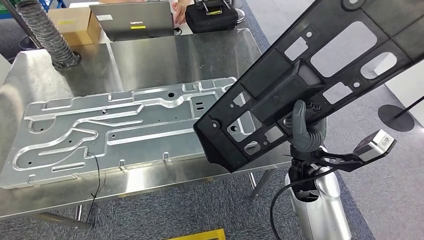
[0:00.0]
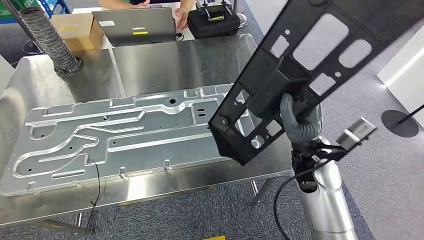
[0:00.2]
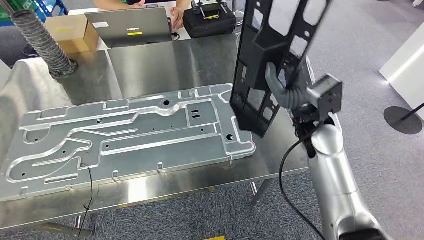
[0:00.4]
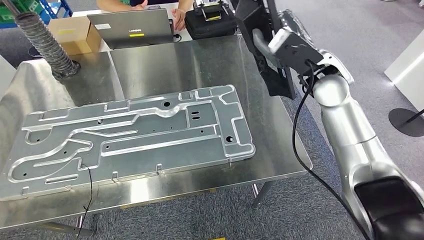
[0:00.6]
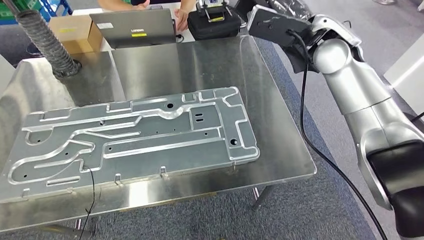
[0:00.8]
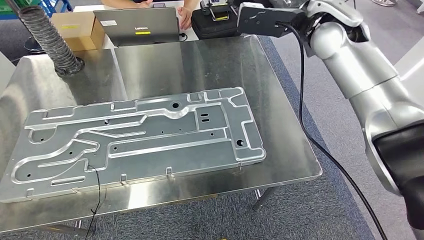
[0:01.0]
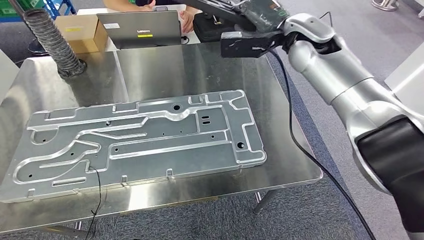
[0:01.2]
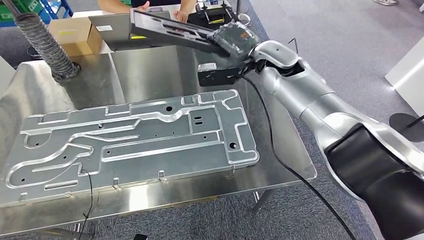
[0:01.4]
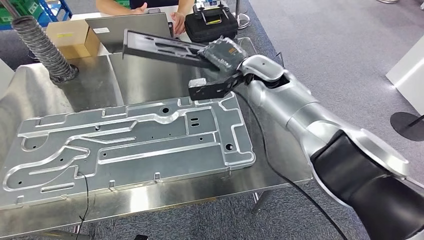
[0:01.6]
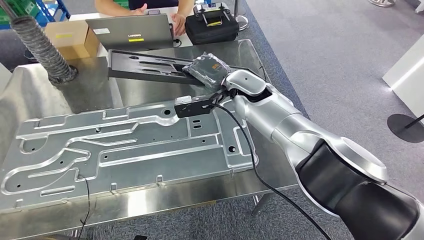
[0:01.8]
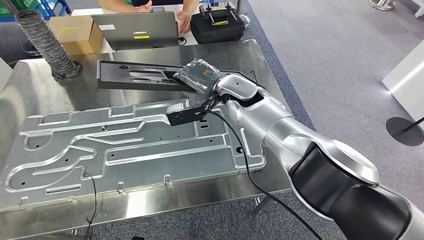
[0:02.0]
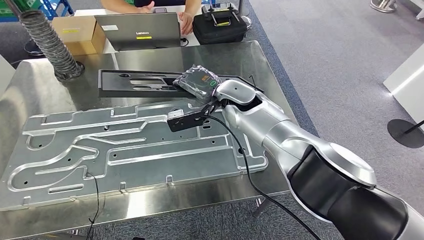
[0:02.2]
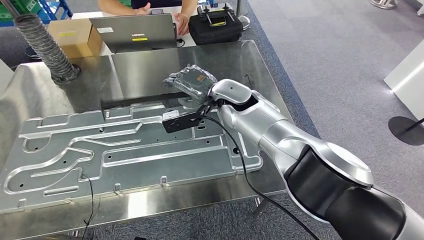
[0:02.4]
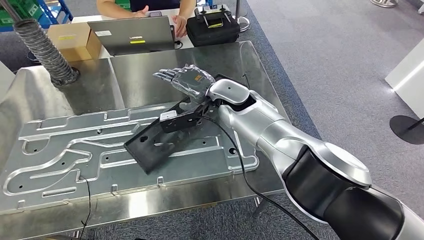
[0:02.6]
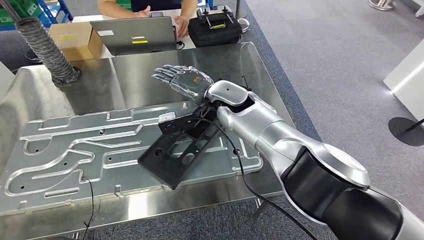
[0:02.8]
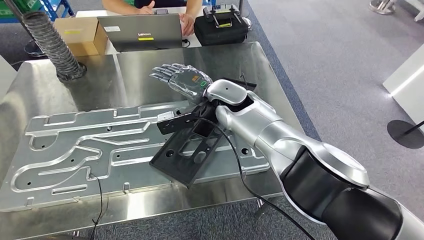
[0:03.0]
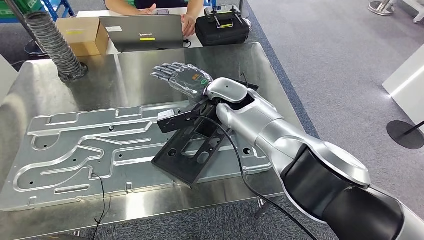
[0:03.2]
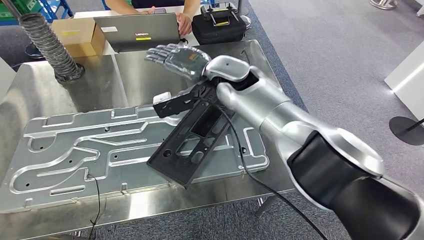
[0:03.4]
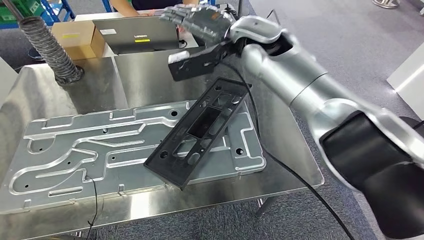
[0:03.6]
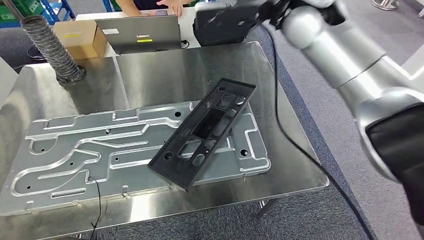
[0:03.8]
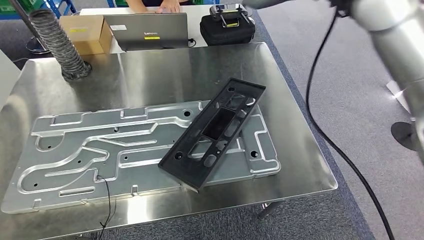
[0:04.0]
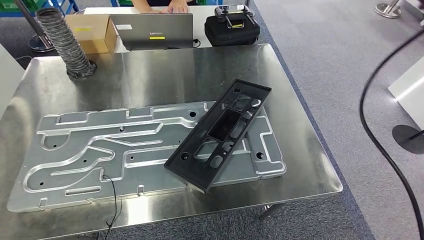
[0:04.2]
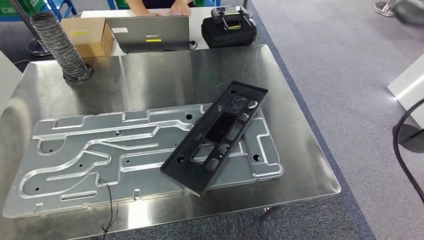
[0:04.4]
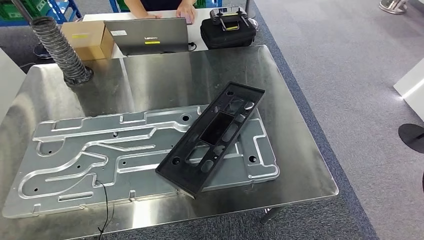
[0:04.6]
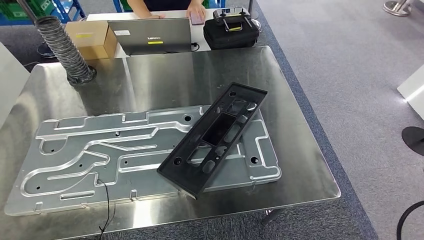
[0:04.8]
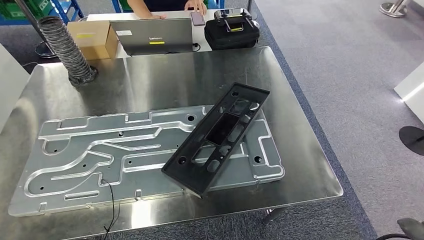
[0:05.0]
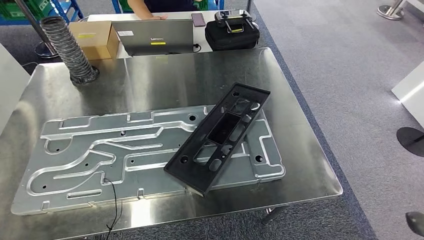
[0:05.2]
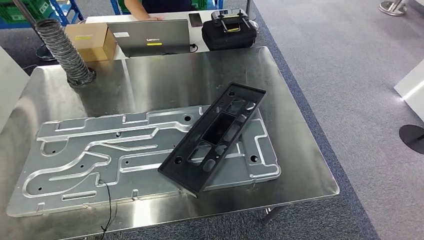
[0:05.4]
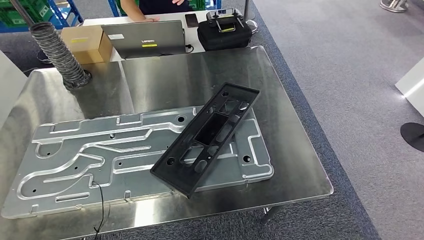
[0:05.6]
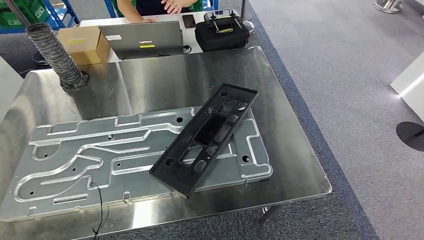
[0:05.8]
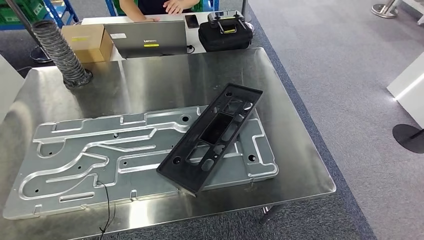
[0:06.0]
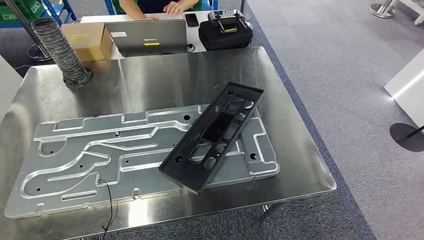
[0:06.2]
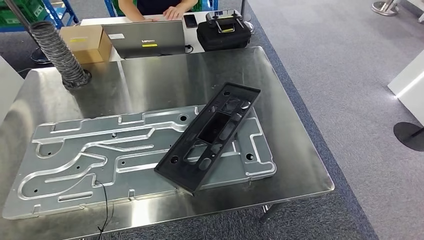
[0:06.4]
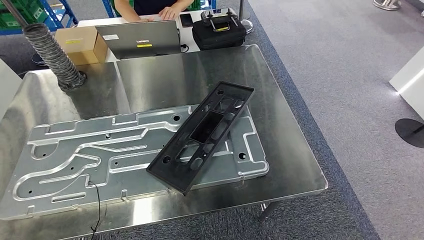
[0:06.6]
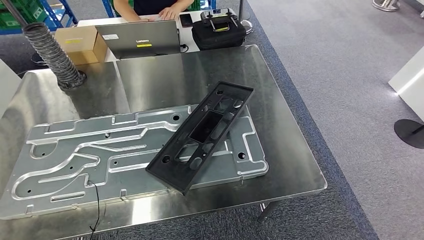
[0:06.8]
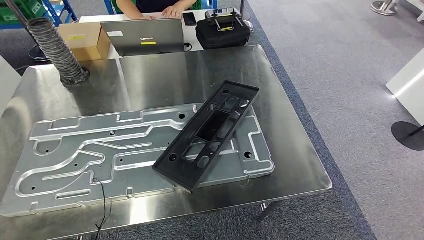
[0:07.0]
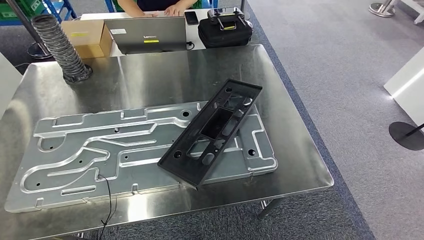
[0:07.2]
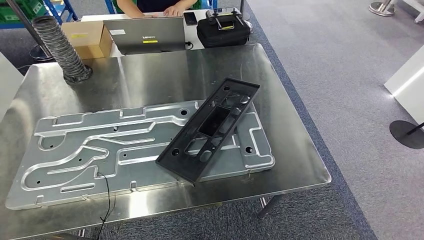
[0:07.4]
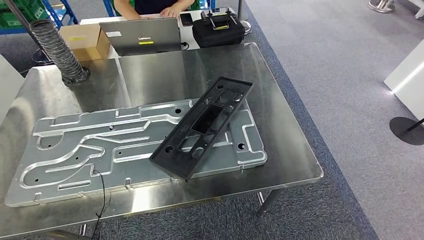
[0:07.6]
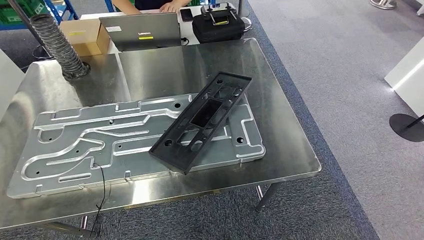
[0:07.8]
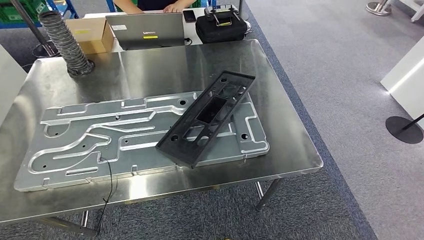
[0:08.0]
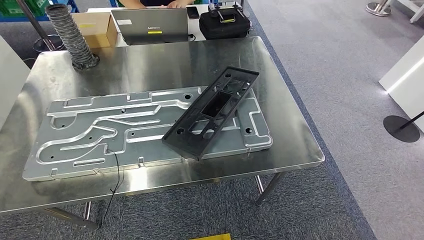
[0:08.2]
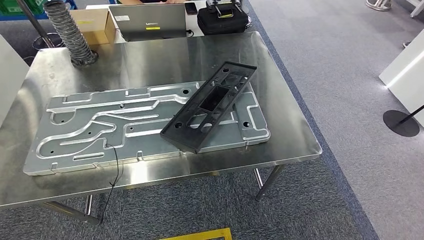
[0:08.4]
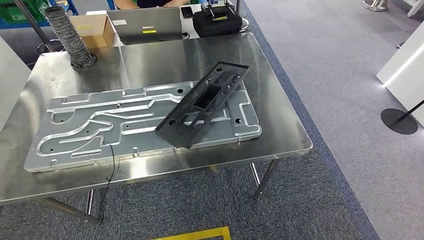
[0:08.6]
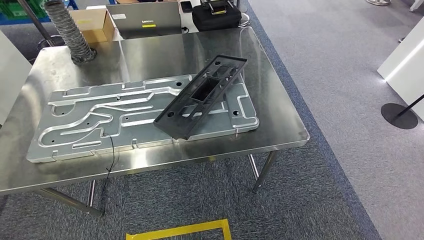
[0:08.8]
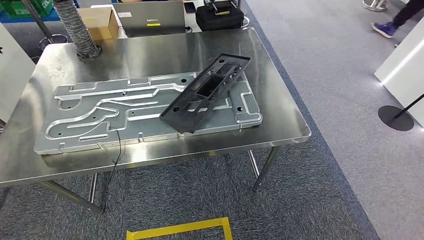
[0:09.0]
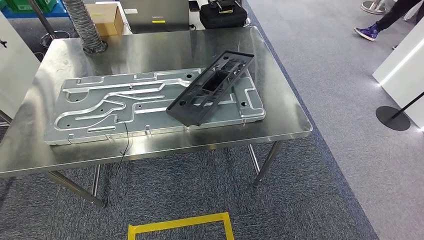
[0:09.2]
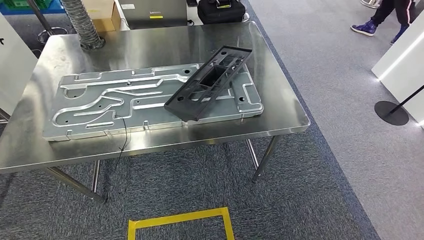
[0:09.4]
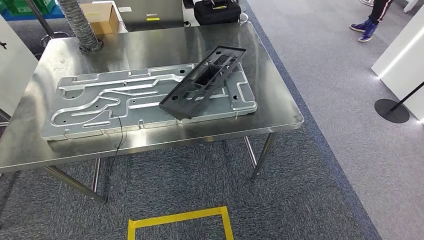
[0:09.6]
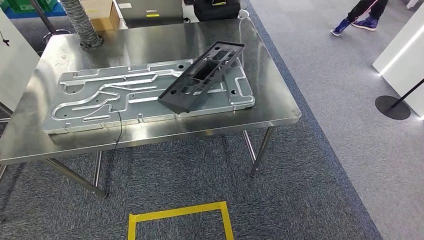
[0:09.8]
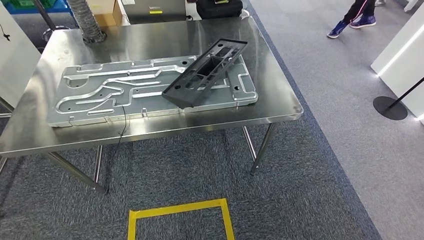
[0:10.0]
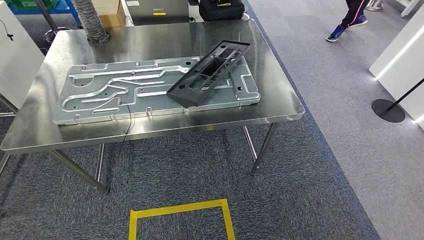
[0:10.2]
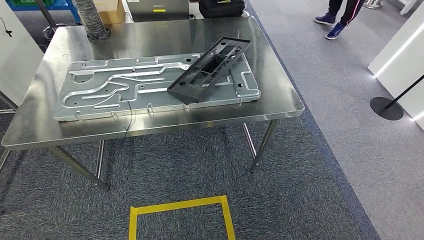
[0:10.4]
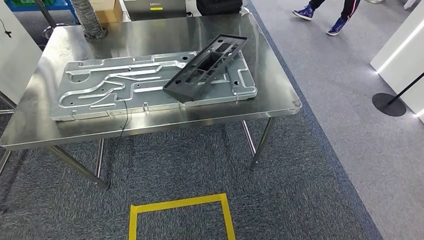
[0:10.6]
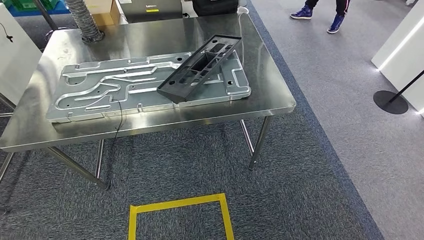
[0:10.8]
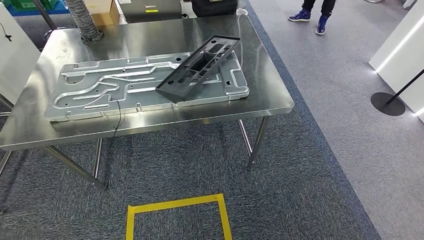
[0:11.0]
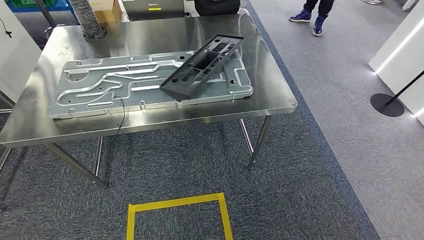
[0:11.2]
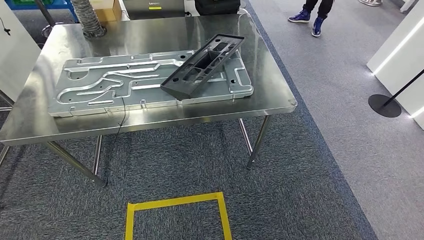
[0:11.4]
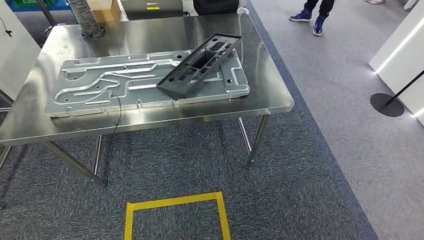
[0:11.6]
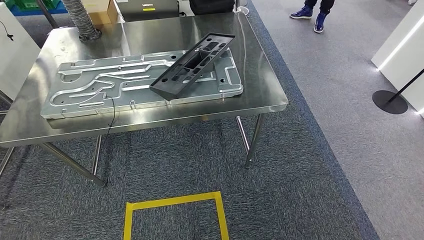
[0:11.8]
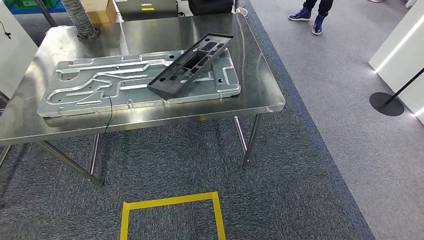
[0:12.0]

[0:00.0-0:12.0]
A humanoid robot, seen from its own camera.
Step, 0:00.8 to 0:05.0: Insert the large material into the corresponding slot on the workbench.
0:04.4 to 0:06.0: The right hand moves downward and backward, some 60 cm.

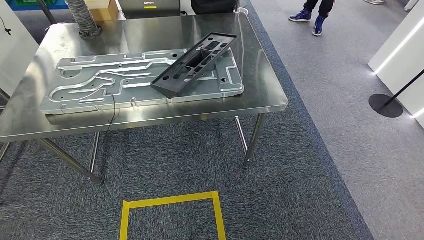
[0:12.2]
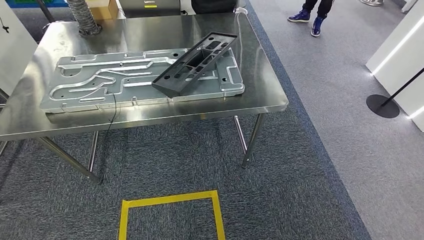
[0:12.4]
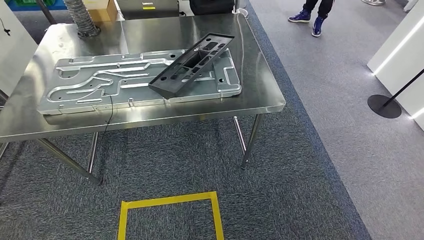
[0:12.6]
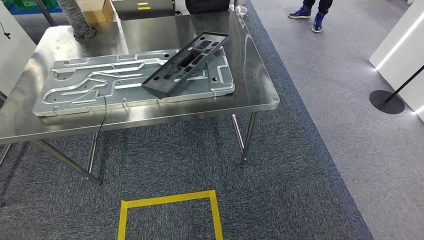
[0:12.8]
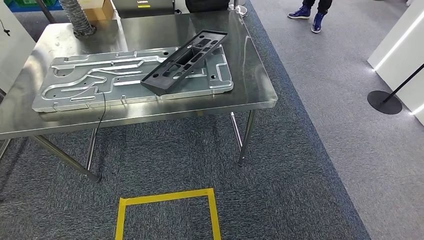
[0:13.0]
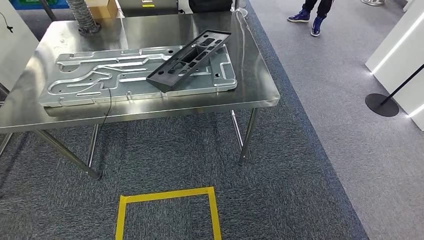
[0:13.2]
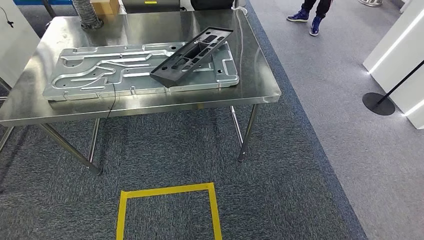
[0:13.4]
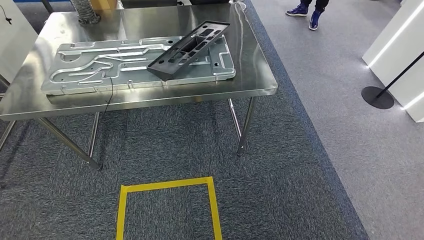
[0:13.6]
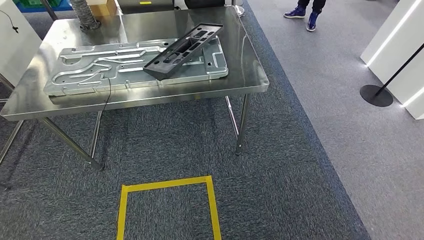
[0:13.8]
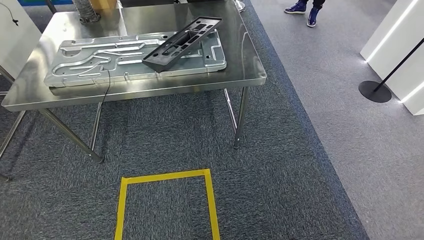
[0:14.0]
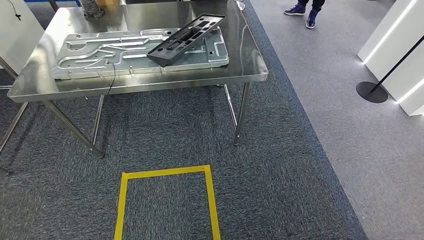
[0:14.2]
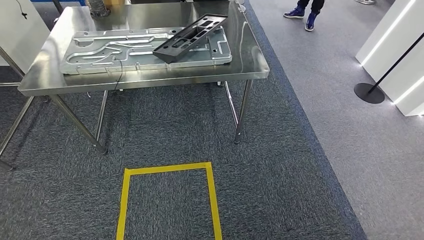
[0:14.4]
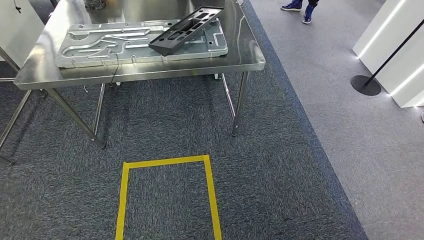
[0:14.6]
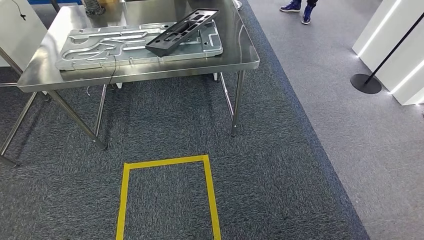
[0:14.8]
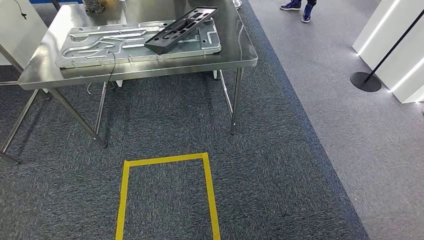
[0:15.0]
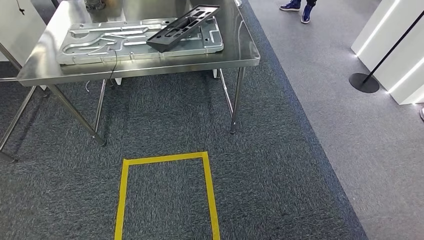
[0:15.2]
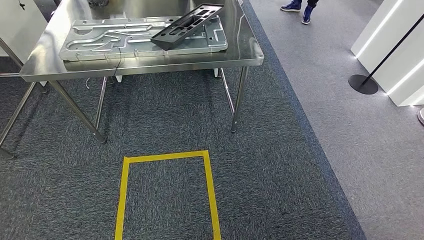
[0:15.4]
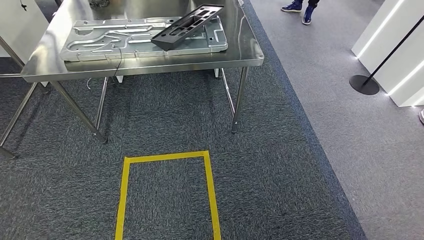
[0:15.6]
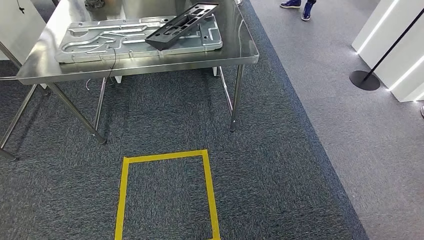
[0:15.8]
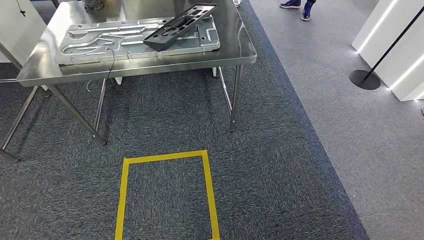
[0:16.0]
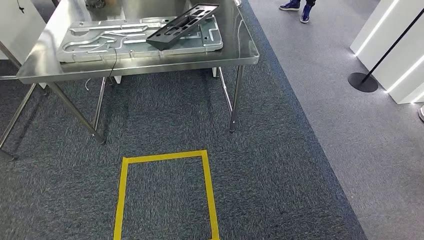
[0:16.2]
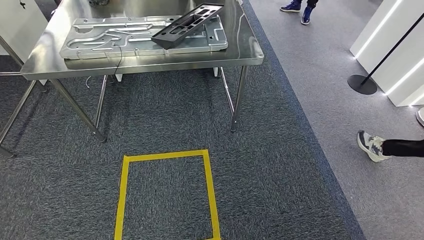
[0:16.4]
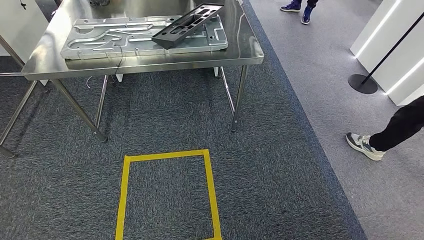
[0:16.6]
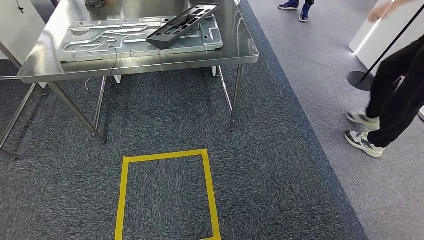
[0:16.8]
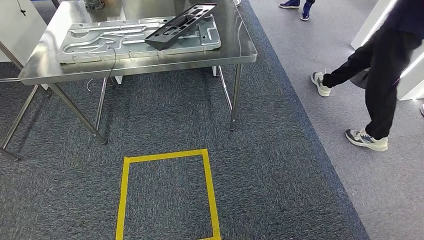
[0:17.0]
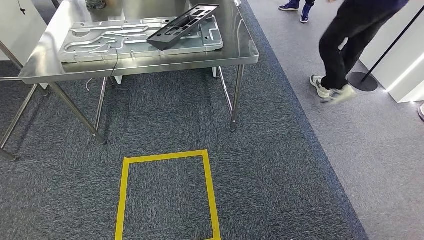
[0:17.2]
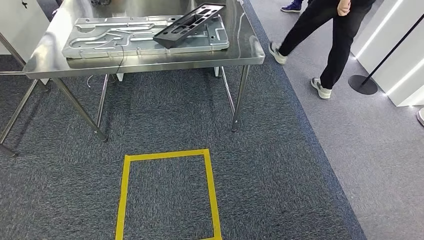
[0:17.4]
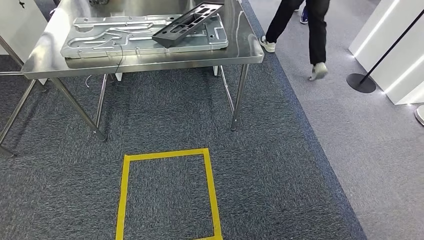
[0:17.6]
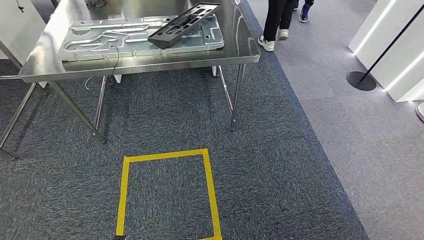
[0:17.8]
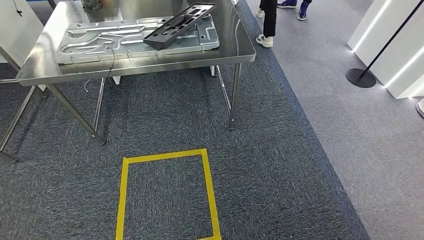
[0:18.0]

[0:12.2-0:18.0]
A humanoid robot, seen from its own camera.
Step, 0:12.2 to 0:18.0: Move to the initial position of the shelf.
0:15.0 to 0:16.6: The hands move only a little.
0:16.6 to 0:18.0: The right hand moves forward and backward over about 10 cm, changing direction 2 times, while the left hand moves forward and backward over roughly 10 cm, changing direction 2 times.
